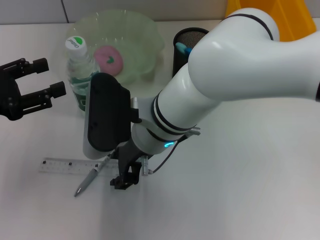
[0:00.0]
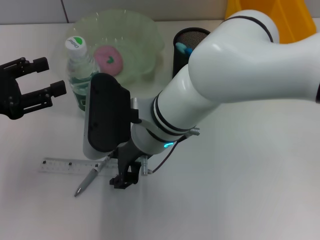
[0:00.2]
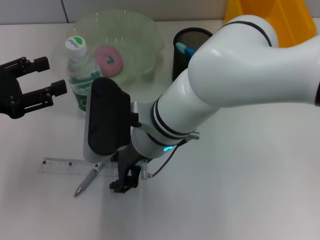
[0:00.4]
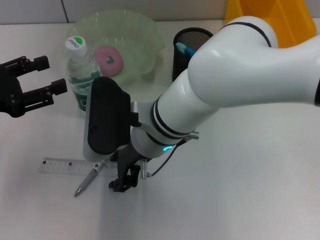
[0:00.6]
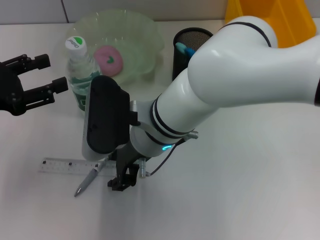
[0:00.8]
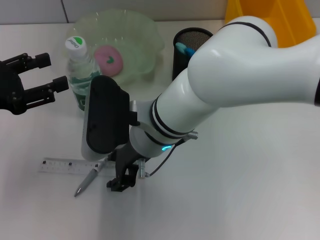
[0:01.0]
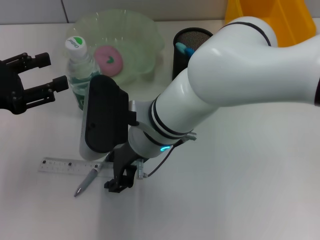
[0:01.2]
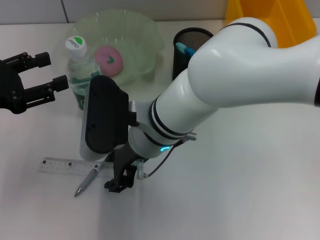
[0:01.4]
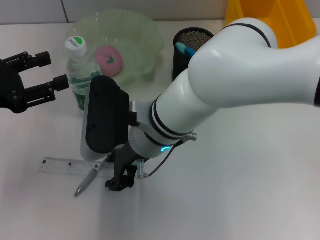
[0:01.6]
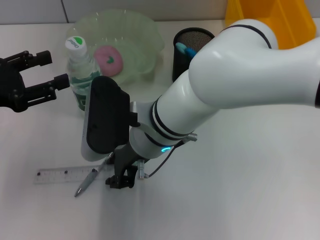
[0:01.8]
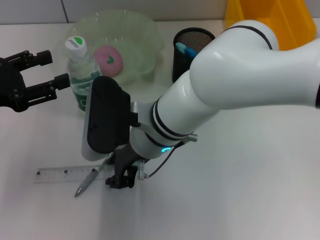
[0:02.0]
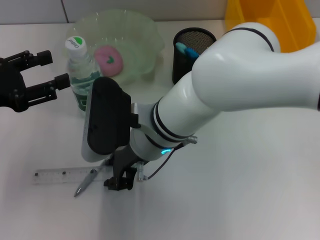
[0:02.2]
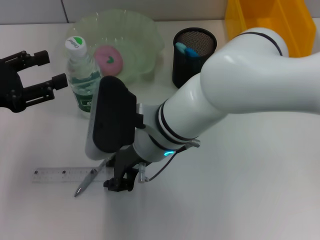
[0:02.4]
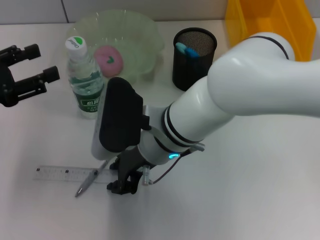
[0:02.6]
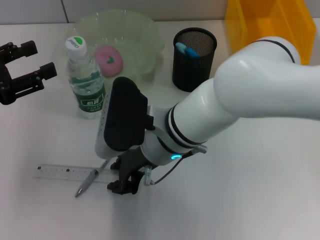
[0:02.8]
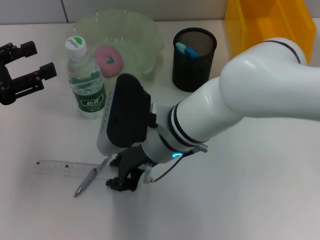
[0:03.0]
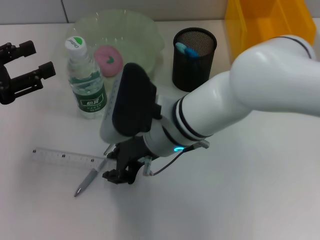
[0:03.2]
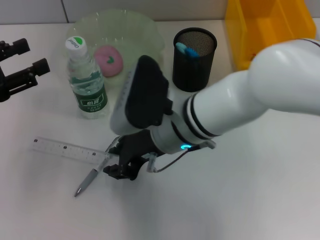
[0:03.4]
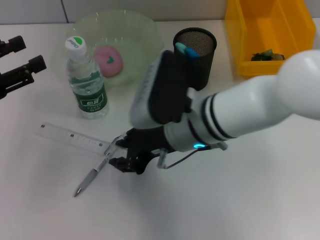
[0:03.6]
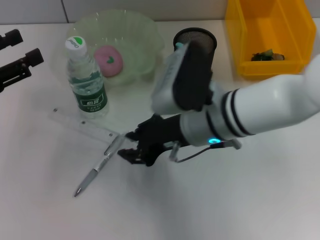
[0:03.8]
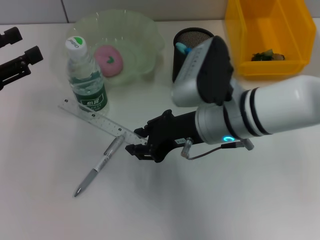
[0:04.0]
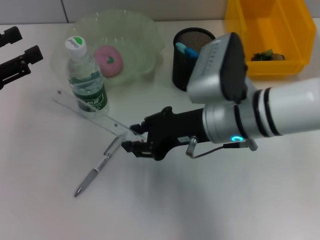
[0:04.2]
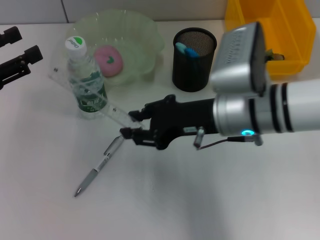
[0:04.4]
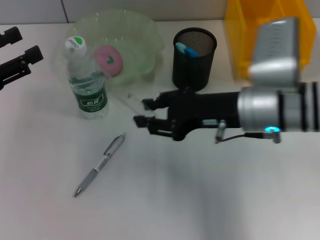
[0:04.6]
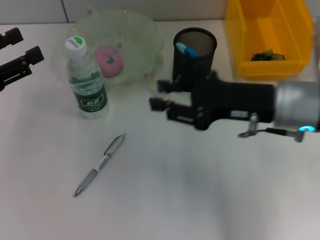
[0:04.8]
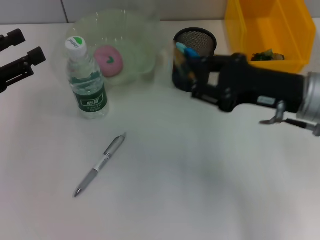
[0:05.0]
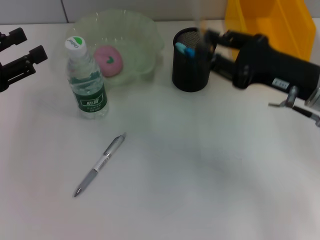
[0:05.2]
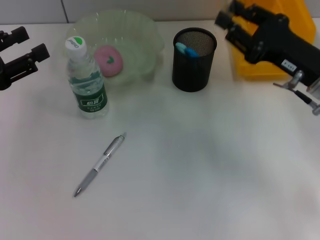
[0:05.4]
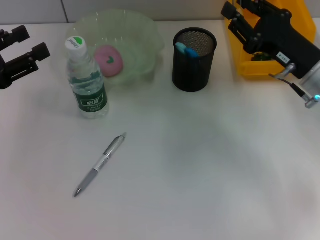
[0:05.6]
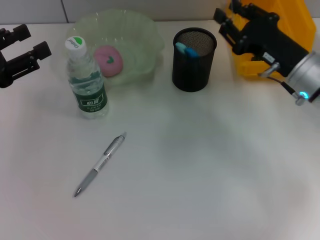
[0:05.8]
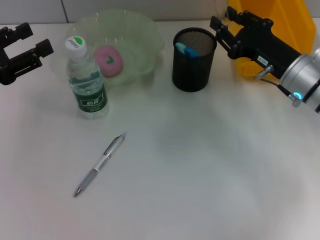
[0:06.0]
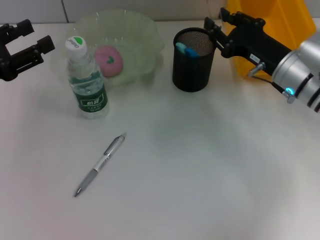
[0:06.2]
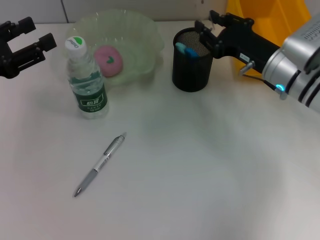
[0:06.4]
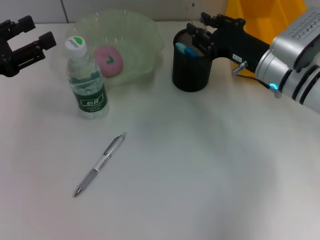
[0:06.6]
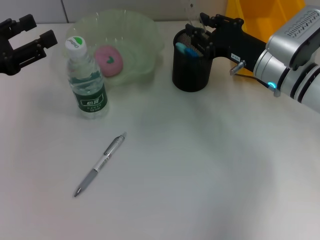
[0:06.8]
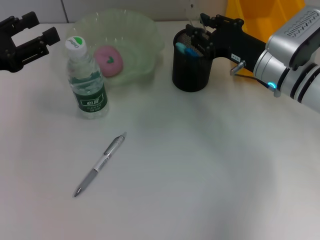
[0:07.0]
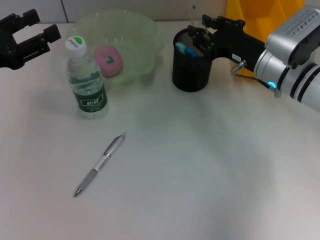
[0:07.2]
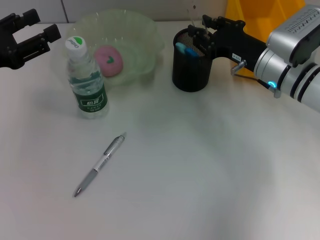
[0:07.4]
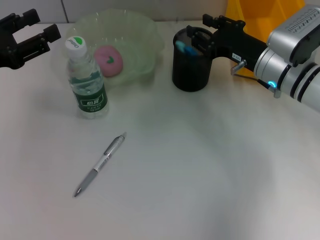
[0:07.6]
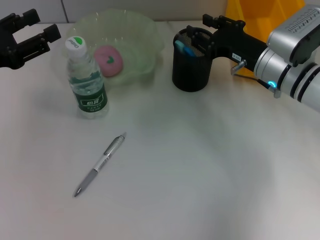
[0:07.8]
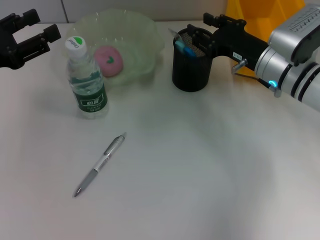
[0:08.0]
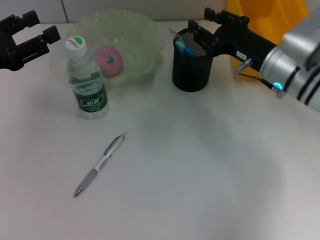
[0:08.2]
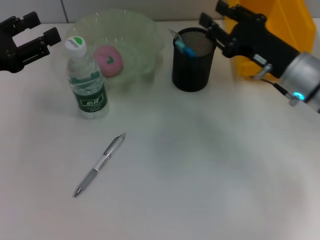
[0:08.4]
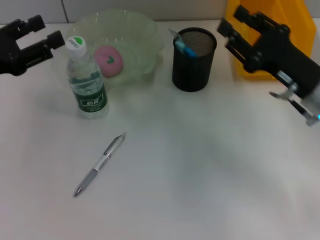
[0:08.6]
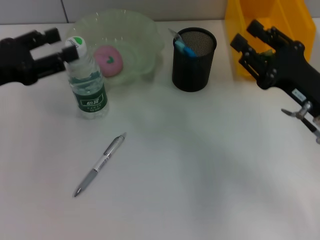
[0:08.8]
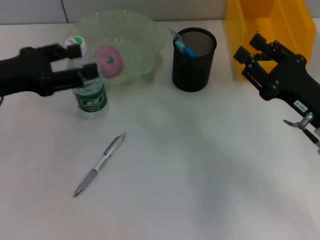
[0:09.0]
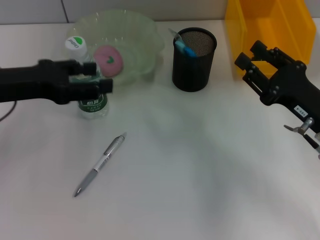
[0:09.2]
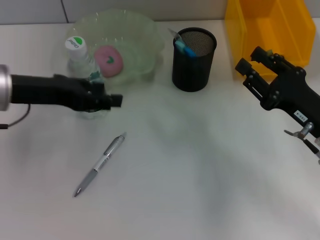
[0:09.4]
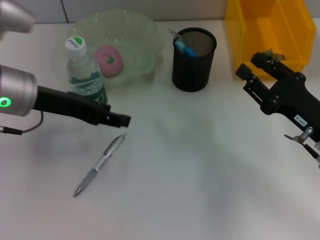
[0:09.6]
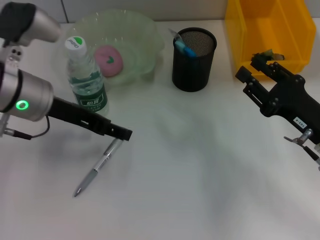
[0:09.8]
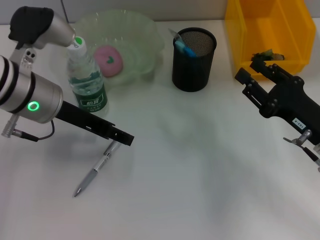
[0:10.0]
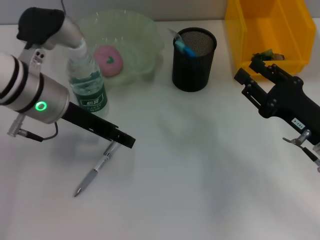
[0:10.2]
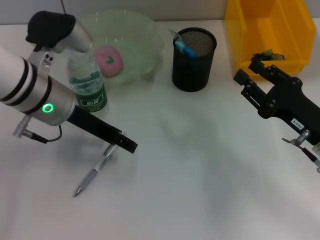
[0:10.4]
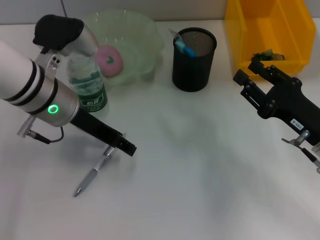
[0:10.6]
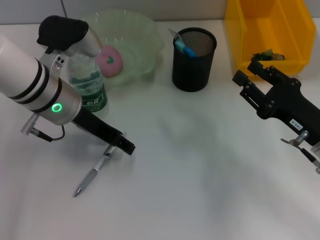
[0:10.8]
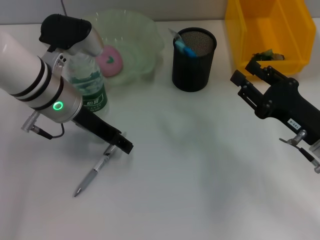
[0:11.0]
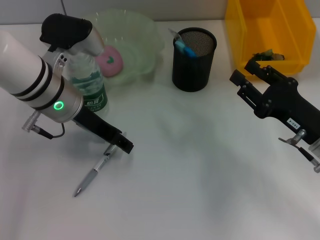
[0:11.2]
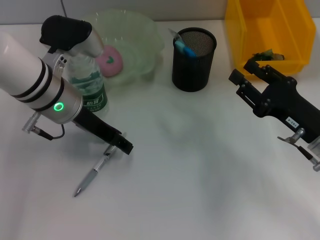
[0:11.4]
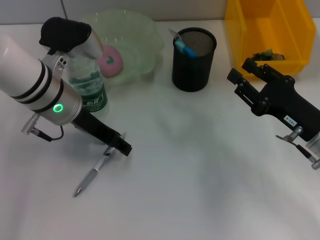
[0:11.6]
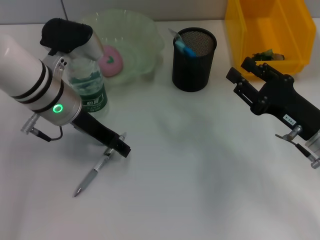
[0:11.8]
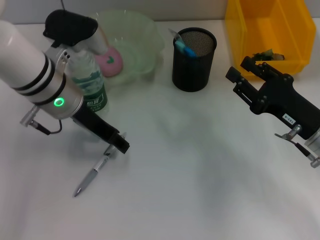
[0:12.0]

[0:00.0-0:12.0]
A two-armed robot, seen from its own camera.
Step, 0:00.0 to 0:08.6: Place the ruler into the pen holder with the right hand.
0:00.0 to 0:01.6: Both grippers stay about where they are.
0:03.0 to 0:04.4: The right gripper shifts some 10 cm to the right.
0:04.4 to 0:06.0: The right gripper heads to the right, downward and forward, covering approximately 15 cm.
0:06.0 to 0:07.6: The grippers move only a little.
0:07.6 to 0:09.0: The right gripper moves backward and to the right, approximately 15 cm.
0:09.0 to 0:10.4: The left gripper is displaced to the right by about 10 cm.
0:10.4 to 0:12.0: The grippers make only small movements.

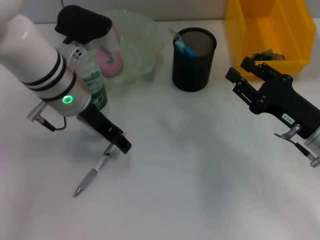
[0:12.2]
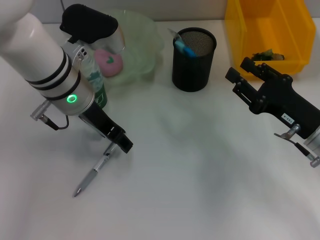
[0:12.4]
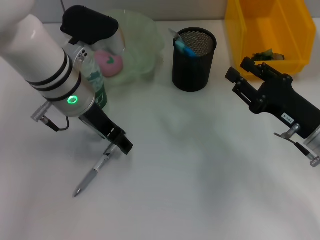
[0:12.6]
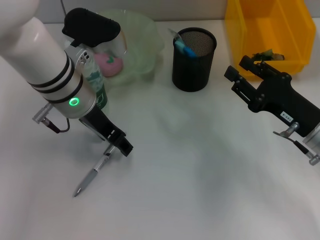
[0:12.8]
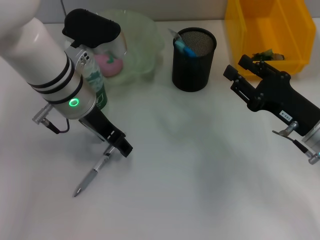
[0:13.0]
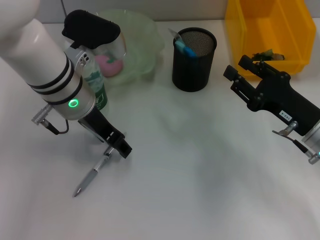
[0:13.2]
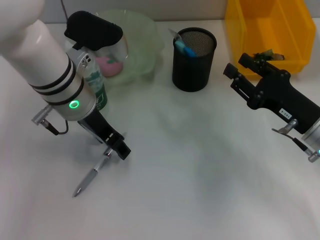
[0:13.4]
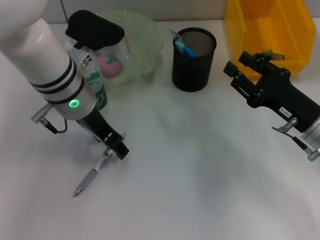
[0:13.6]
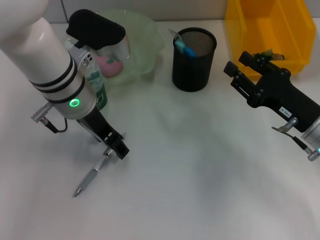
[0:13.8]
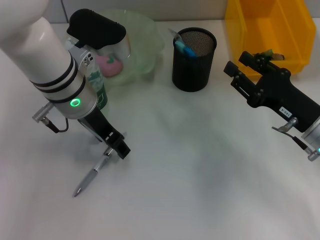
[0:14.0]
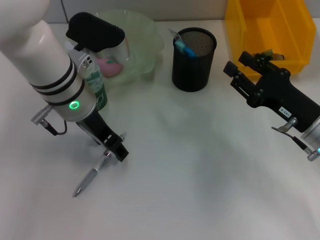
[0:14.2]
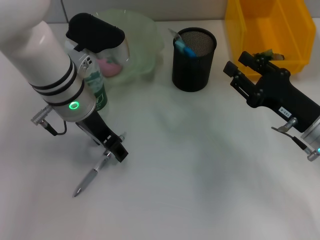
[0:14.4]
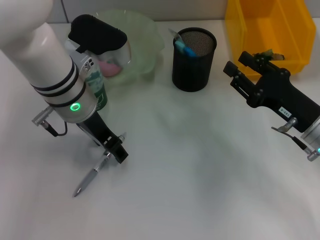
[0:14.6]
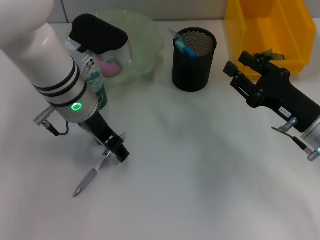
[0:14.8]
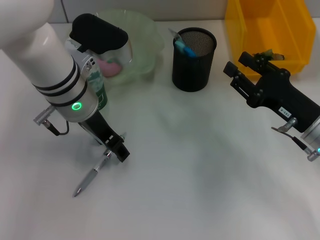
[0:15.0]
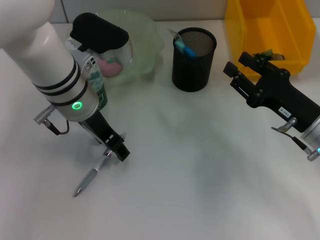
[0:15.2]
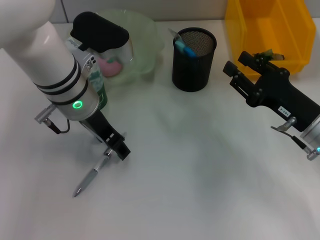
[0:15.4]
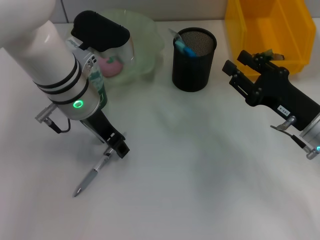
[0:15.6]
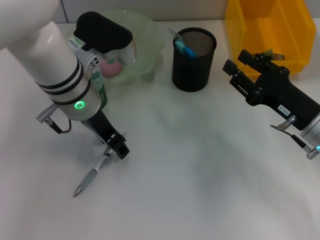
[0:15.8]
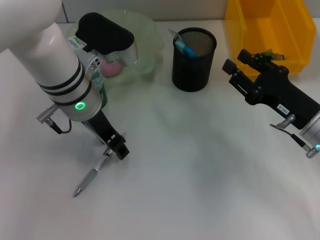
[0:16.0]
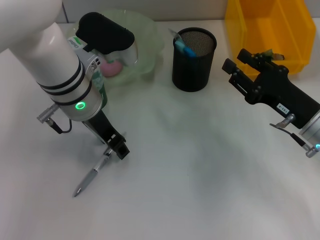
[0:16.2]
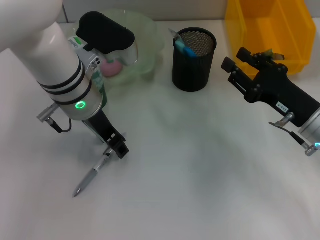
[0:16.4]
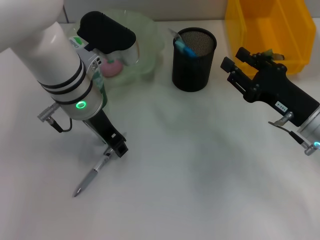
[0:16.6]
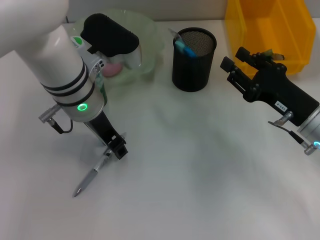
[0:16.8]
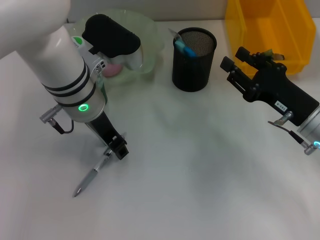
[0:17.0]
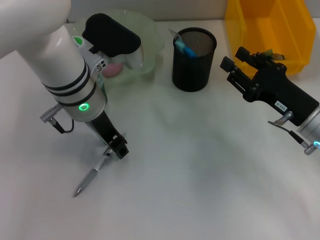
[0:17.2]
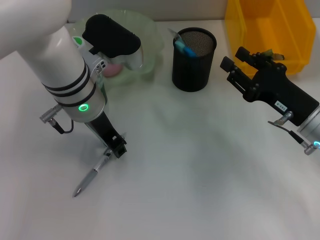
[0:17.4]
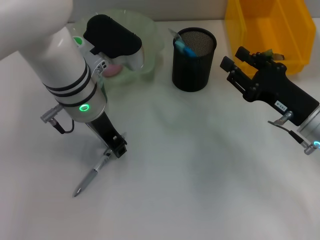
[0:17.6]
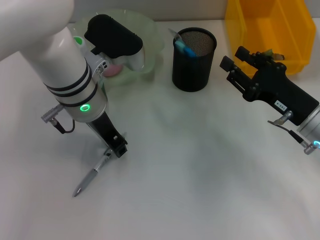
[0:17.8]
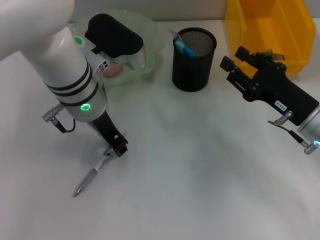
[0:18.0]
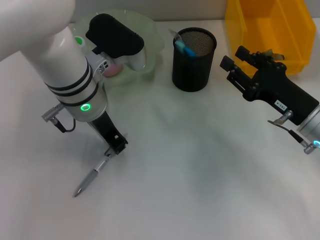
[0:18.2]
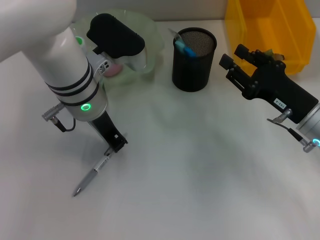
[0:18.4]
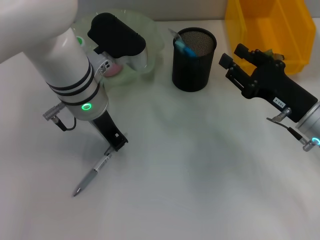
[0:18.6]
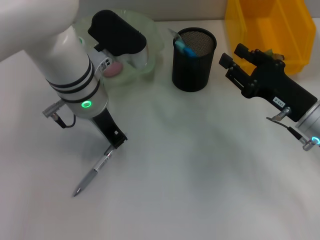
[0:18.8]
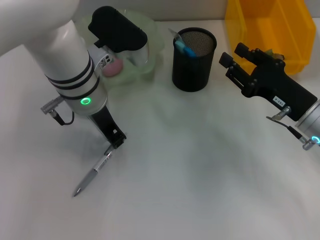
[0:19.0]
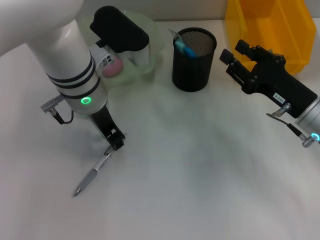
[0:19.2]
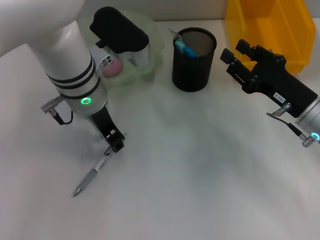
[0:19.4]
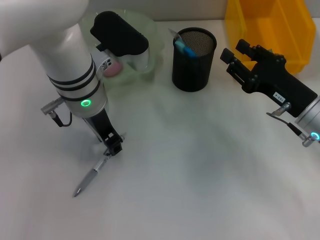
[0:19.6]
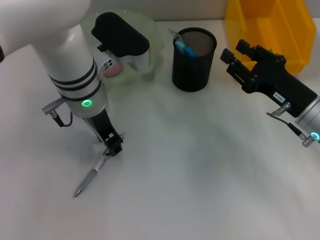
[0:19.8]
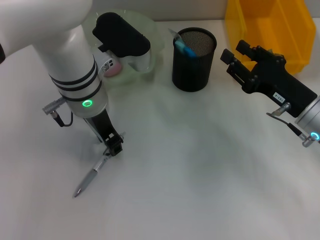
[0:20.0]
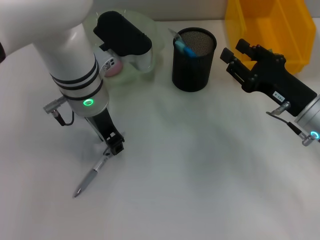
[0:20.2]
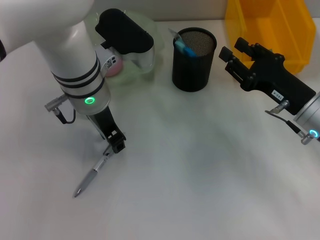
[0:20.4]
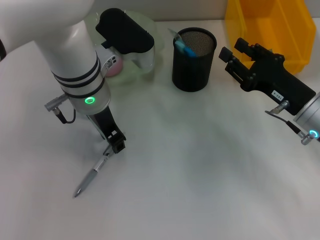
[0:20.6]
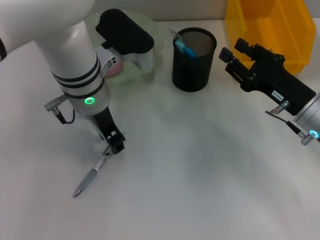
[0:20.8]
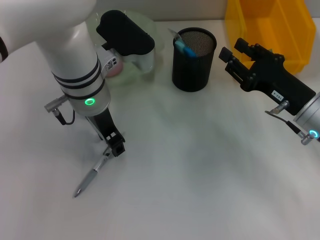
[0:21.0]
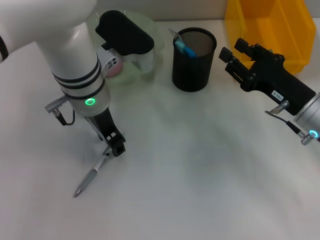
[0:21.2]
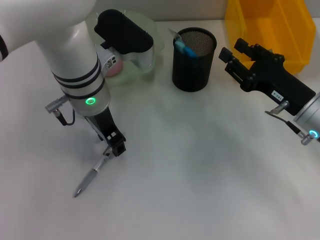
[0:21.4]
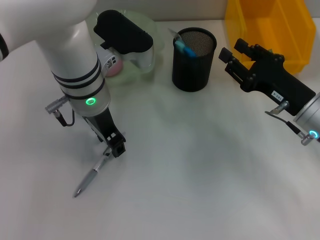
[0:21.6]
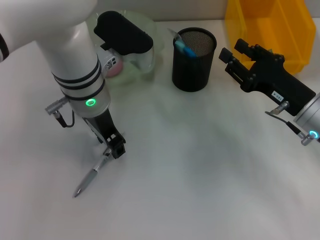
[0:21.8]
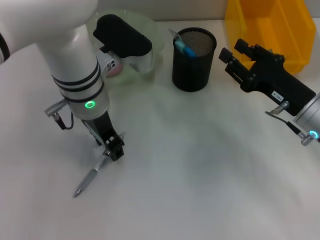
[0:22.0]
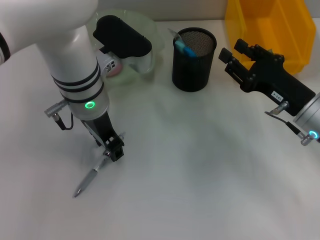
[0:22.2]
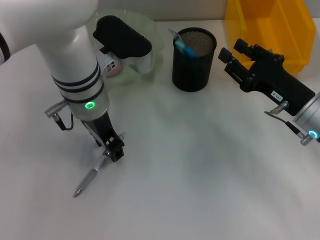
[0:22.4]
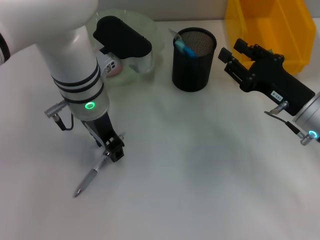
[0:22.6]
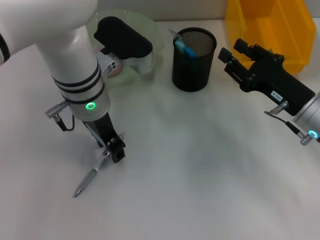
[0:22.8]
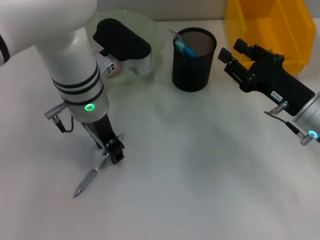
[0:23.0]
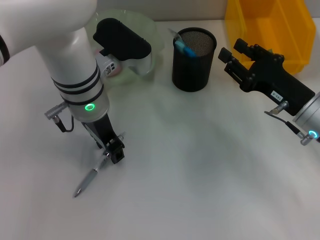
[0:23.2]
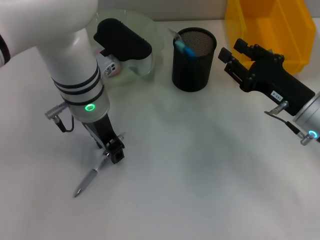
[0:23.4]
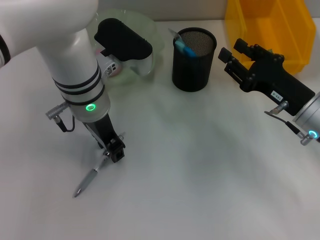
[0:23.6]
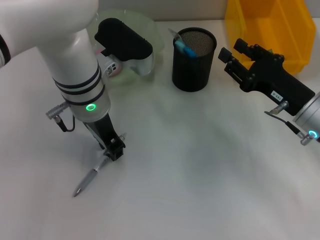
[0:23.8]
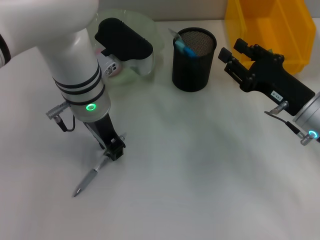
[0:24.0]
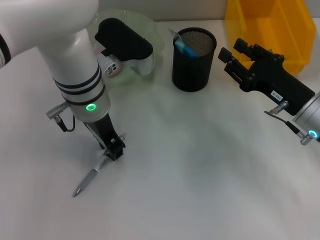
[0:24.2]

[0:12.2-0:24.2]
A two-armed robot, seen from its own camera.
0:12.2 to 0:13.8: The grippers make only small movements.
0:13.8 to 0:16.6: Both grippers stay put.
0:16.6 to 0:18.2: The left gripper closes.
0:18.2 to 0:19.8: The grippers move only a little.
0:19.8 to 0:24.2: Neither gripper changes place.
